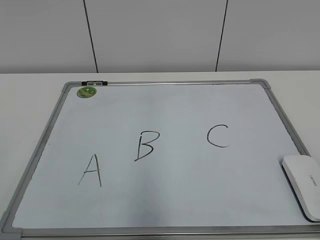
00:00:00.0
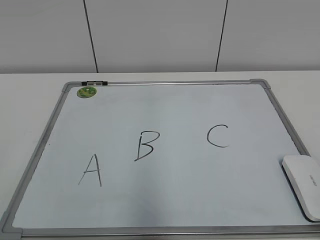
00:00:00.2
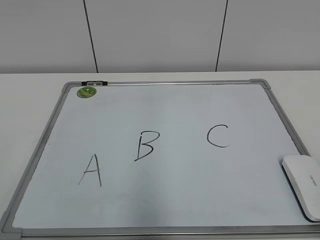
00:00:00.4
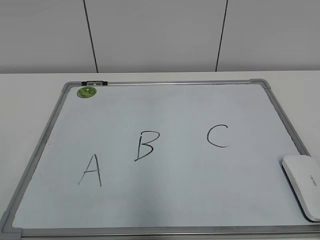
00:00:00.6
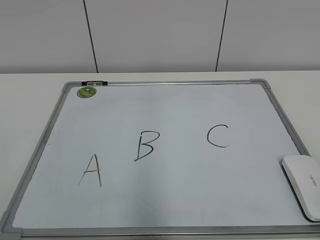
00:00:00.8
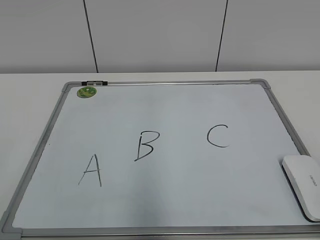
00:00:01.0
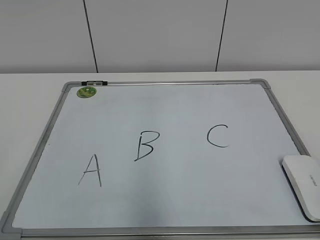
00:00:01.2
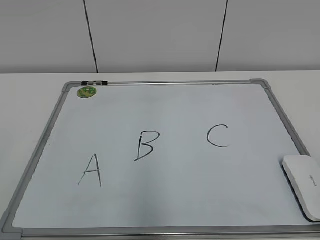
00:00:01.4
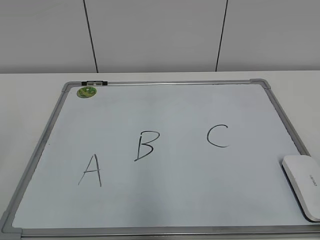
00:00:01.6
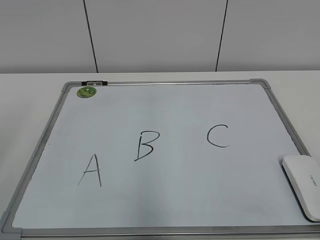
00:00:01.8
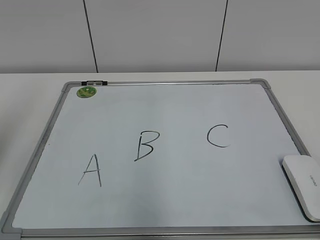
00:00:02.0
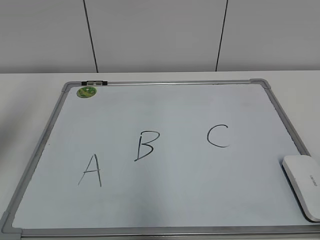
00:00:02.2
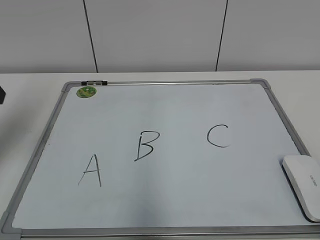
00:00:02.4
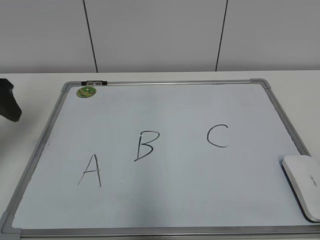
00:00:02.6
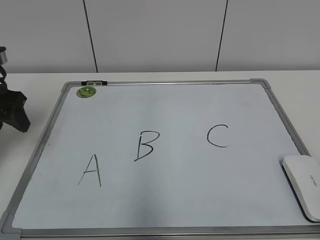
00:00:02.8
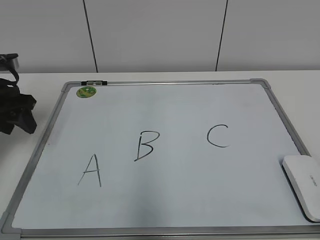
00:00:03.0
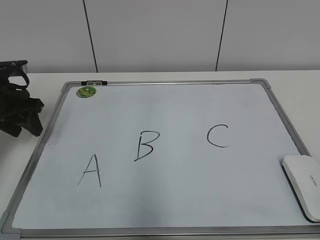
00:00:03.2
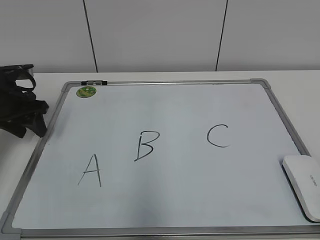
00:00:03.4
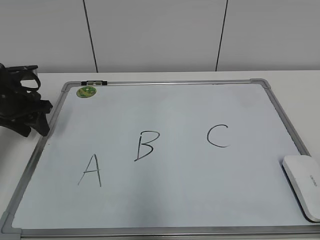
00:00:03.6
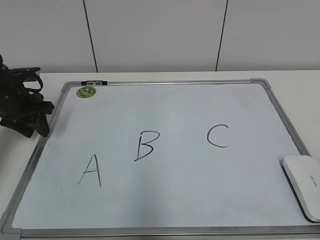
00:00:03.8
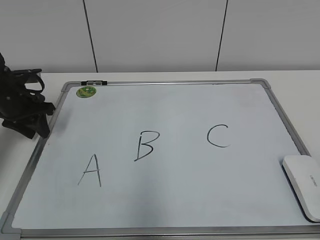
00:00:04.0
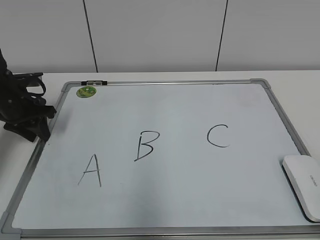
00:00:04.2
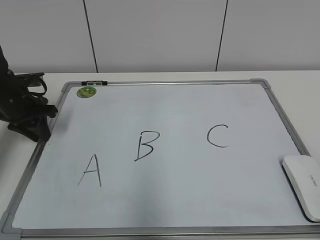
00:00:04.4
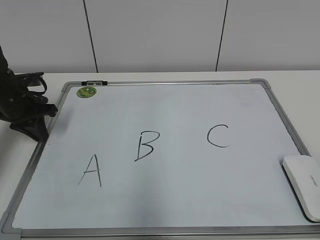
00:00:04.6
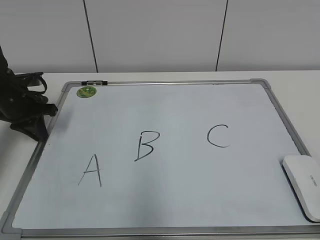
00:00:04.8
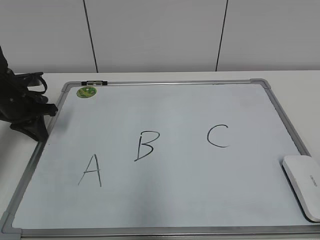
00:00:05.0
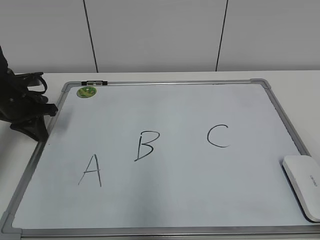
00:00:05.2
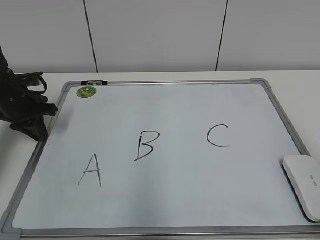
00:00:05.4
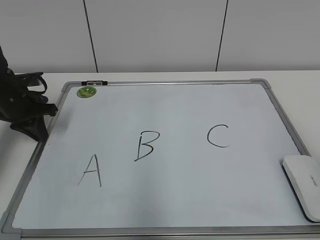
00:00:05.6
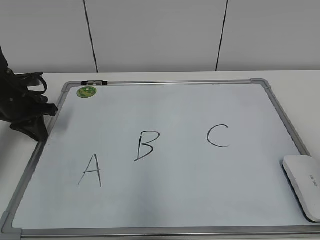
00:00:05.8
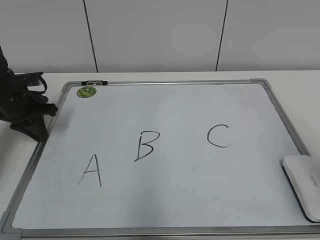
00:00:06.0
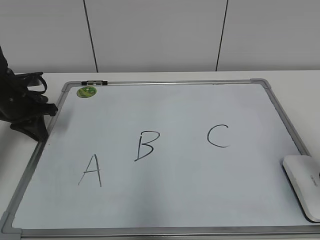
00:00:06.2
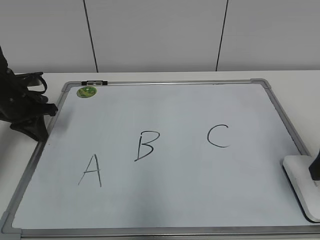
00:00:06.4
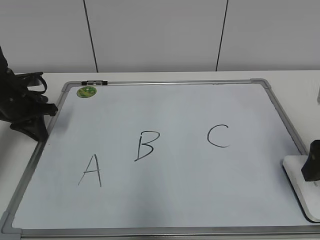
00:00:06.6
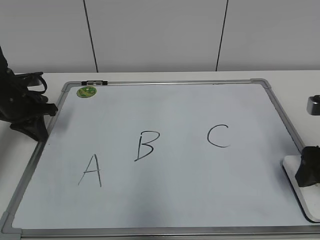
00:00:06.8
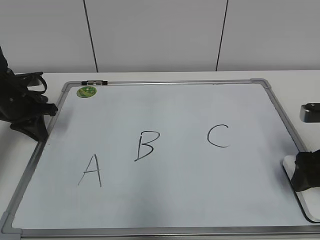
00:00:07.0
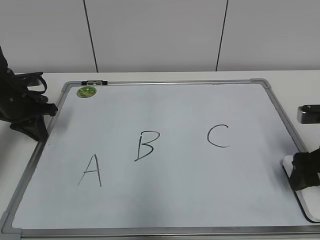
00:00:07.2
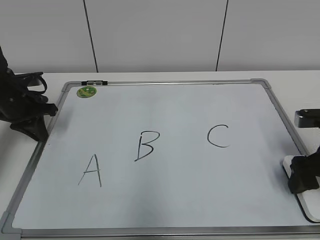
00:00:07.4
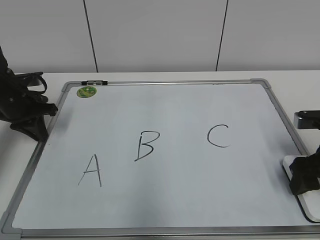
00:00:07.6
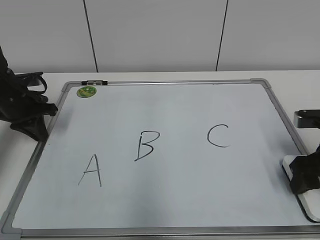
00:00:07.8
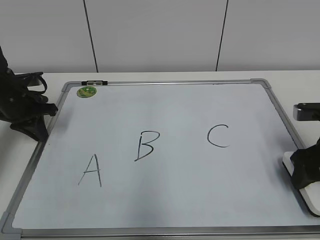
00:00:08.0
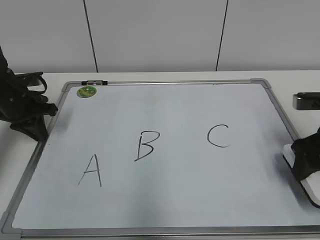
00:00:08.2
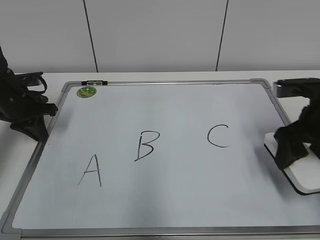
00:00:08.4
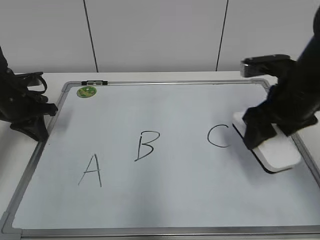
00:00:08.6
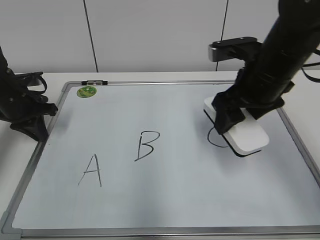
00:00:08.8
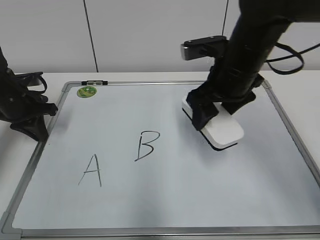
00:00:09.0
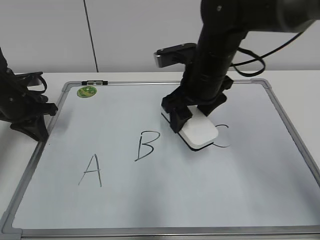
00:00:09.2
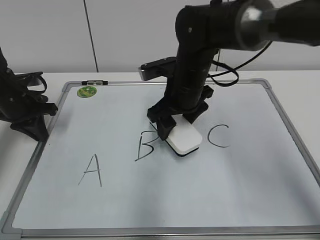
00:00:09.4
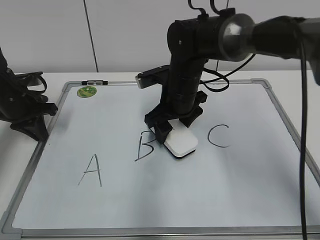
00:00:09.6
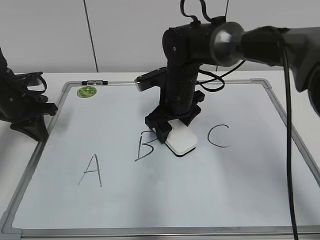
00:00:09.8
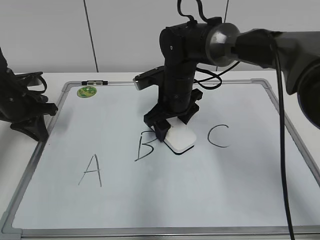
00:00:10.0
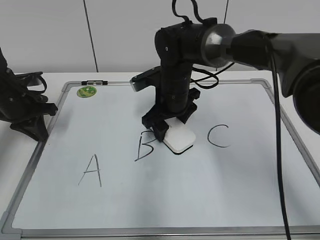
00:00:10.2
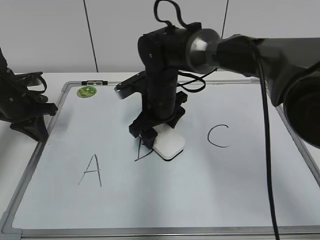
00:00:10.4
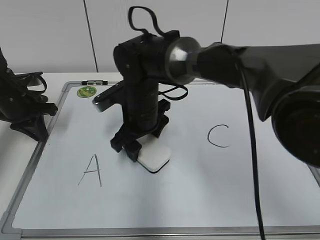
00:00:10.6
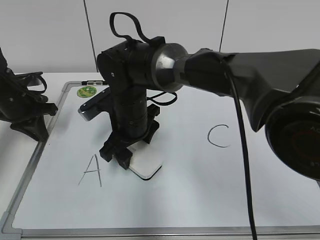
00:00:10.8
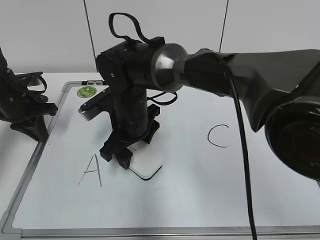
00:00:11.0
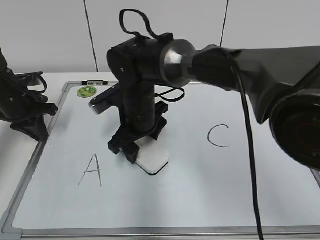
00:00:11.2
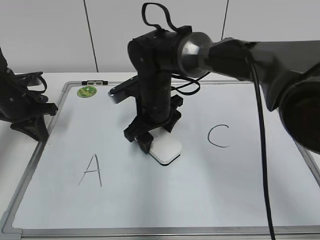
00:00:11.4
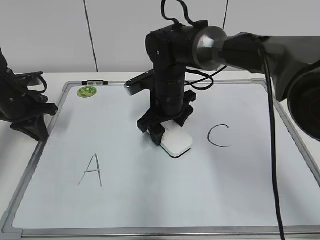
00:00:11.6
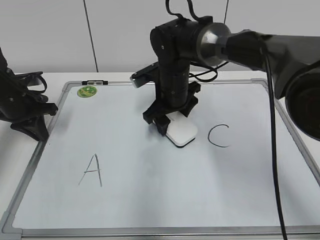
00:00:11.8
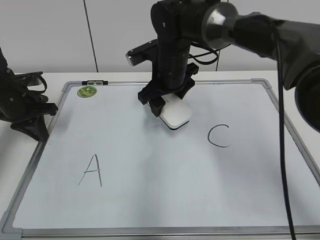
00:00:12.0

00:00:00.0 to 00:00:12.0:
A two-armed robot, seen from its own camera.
Task of the whole recording: pick up the eraser on the blackboard and erase the letter "B".
Step, 00:00:00.0 to 00:00:04.4: Hold the drawing board steady with your left hand.
Step, 00:00:04.8 to 00:00:07.6: Grab the eraser with your right hand.
Step, 00:00:07.8 to 00:00:11.6: Erase the letter B with your right hand.
00:00:01.6 to 00:00:03.0: The left gripper moves forward, approximately 30 cm.
00:00:03.0 to 00:00:04.4: The left gripper goes some 10 cm downward and forward.
00:00:04.4 to 00:00:06.0: The right gripper goes roughly 15 cm forward, and opens up.
00:00:06.0 to 00:00:07.6: The right gripper is displaced downward and forward by roughly 20 cm, and closes up.
00:00:07.6 to 00:00:09.0: The right gripper goes approximately 20 cm to the left, upward and forward.
00:00:09.0 to 00:00:10.4: The right gripper shifts some 15 cm to the left, downward and forward.
00:00:10.4 to 00:00:12.0: The right gripper goes to the left and returns, about 5 cm each way.

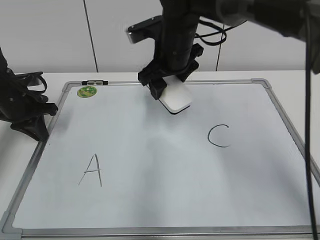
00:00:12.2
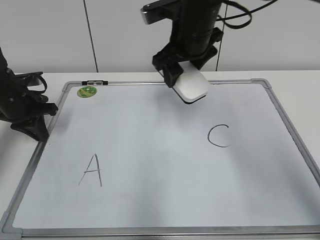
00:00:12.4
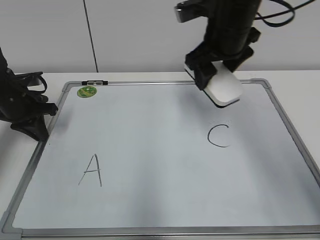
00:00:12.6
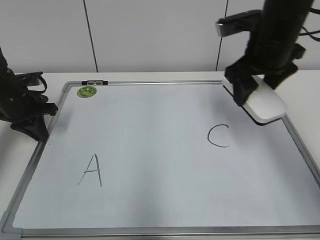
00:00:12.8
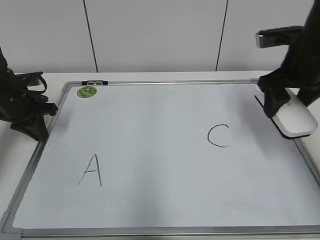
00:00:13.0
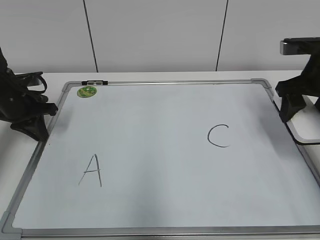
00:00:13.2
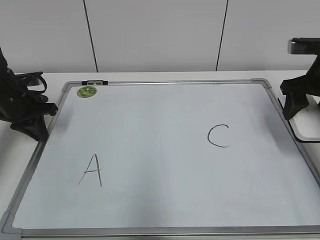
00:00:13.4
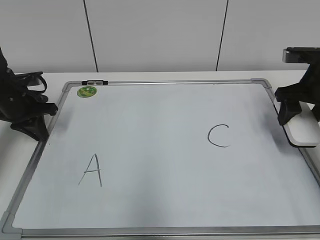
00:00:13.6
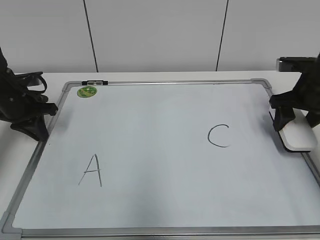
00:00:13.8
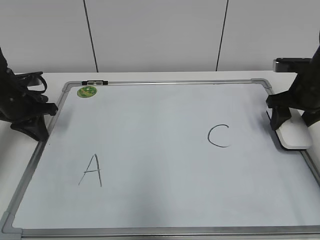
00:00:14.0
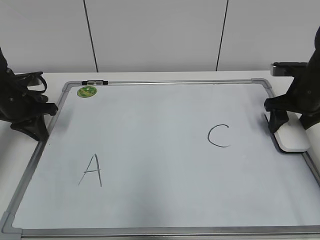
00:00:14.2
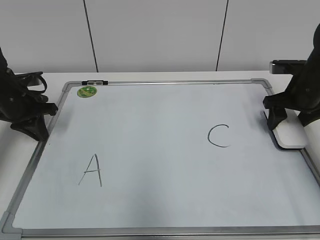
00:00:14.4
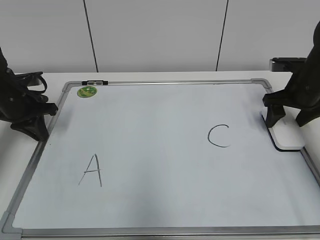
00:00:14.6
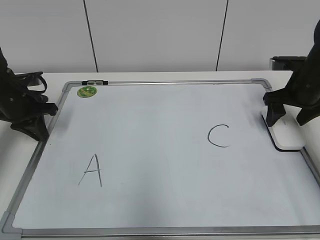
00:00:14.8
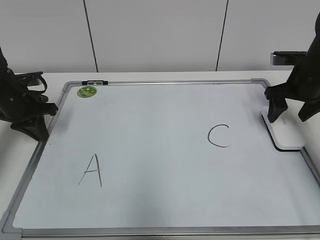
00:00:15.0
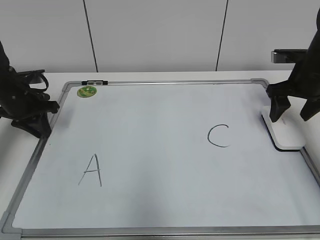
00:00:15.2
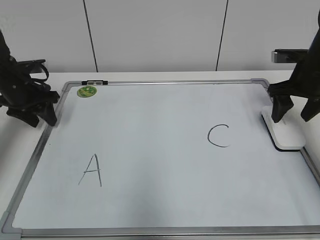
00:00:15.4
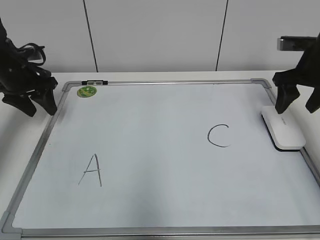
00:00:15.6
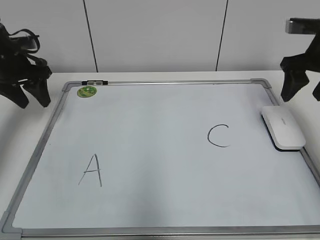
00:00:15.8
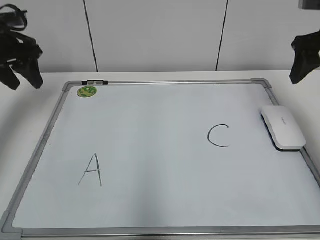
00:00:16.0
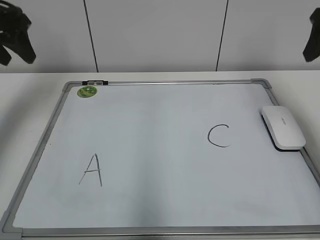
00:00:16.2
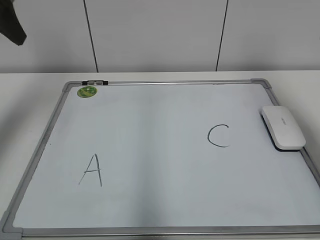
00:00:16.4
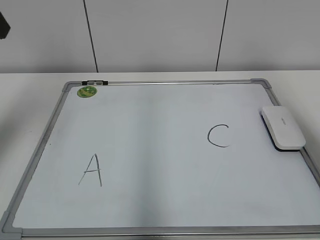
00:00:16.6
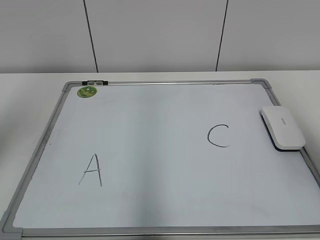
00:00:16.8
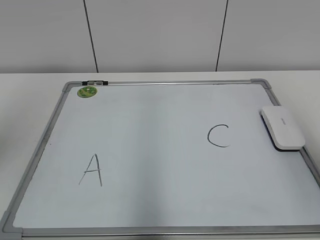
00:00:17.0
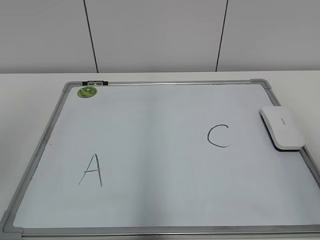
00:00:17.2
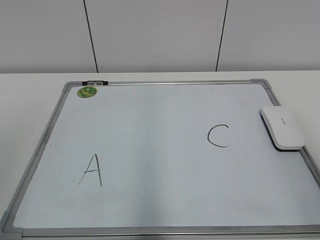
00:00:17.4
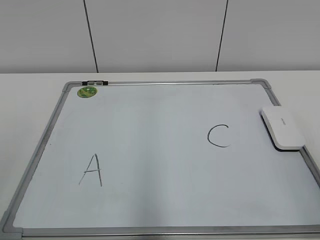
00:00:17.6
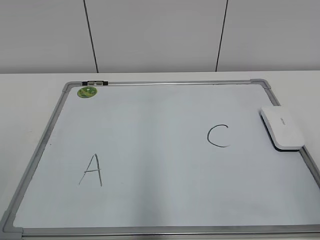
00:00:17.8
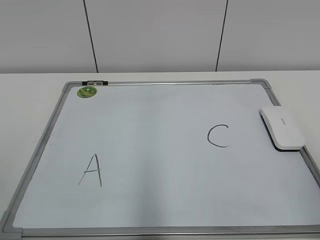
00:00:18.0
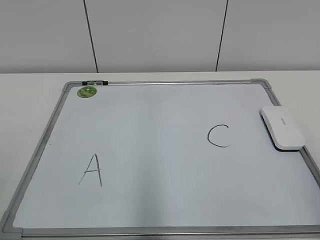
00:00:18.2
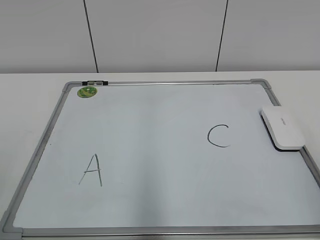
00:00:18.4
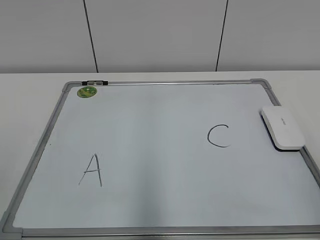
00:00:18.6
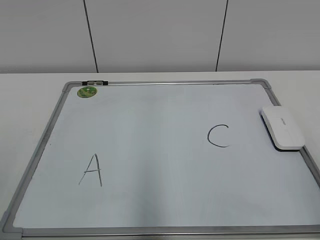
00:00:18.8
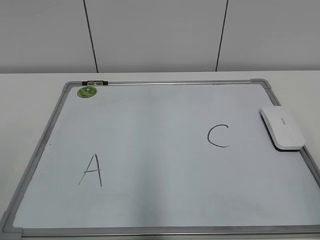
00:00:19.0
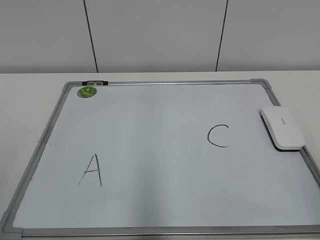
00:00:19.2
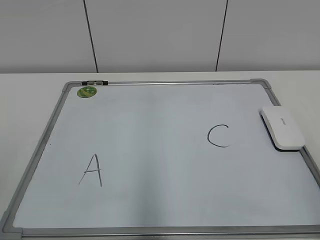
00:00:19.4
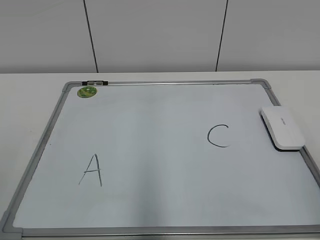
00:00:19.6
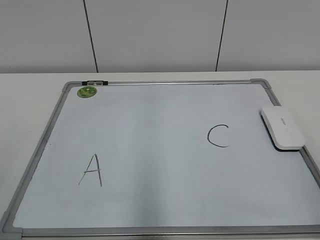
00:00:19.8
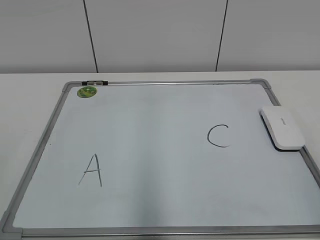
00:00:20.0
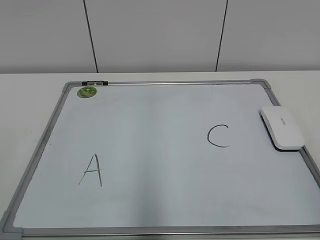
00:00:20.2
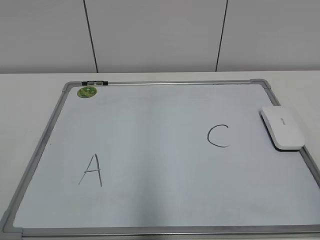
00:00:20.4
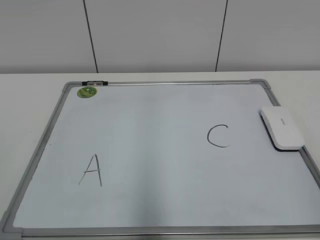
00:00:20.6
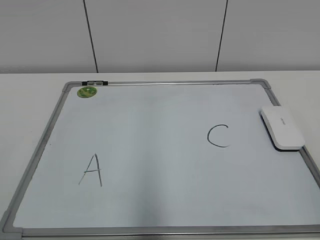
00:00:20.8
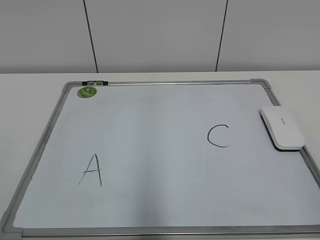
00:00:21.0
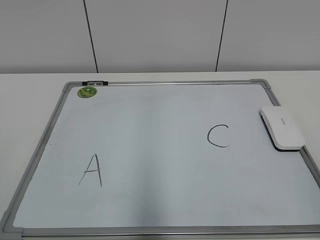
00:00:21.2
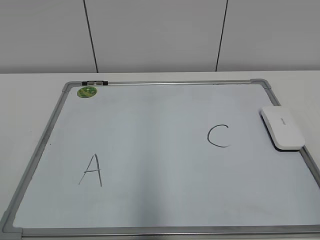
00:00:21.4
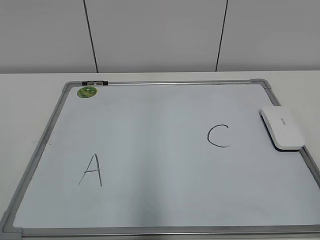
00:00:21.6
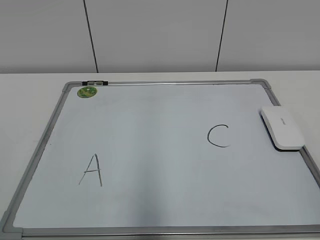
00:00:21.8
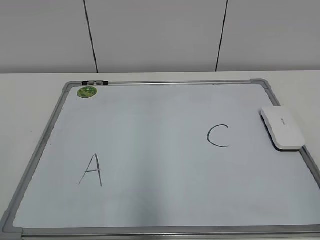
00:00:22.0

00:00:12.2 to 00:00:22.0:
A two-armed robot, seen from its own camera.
Task of the whole recording: pick up the eraser on the blackboard and erase the letter "B".
Step, 00:00:12.2 to 00:00:14.6: Put down the eraser with your right hand.
00:00:12.2 to 00:00:13.6: The right gripper heads to the right, covering roughly 25 cm.
00:00:13.6 to 00:00:15.0: The right gripper opens its fingers.
00:00:15.0 to 00:00:16.4: The right gripper shifts approximately 25 cm upward and backward, while the left gripper is displaced upward by roughly 25 cm, and opens up.
00:00:16.4 to 00:00:17.8: The right gripper goes roughly 25 cm backward and downward; the left gripper heads backward, covering roughly 30 cm.
00:00:20.6 to 00:00:22.0: Neither gripper changes place.
